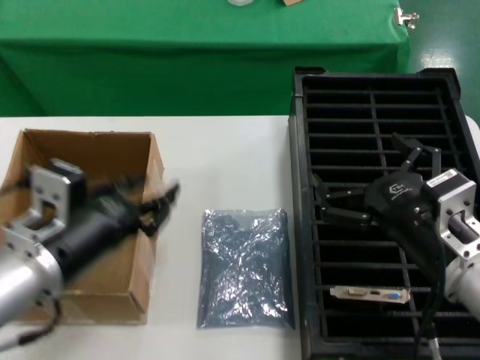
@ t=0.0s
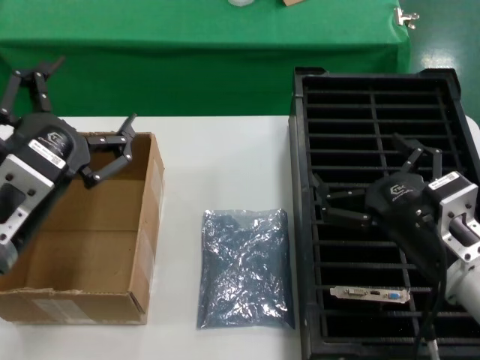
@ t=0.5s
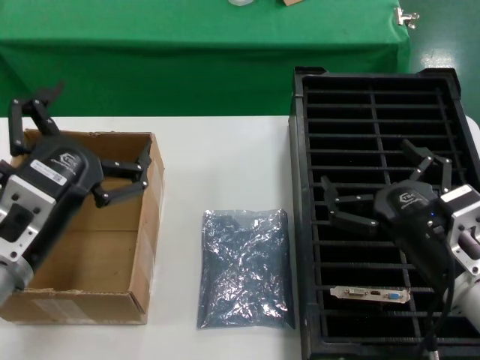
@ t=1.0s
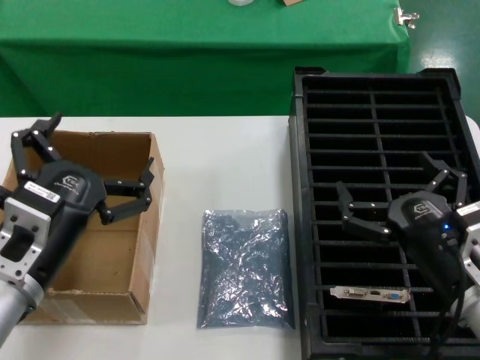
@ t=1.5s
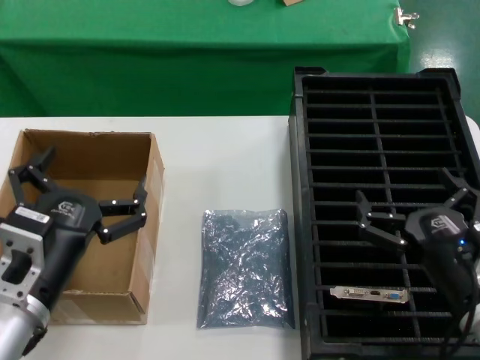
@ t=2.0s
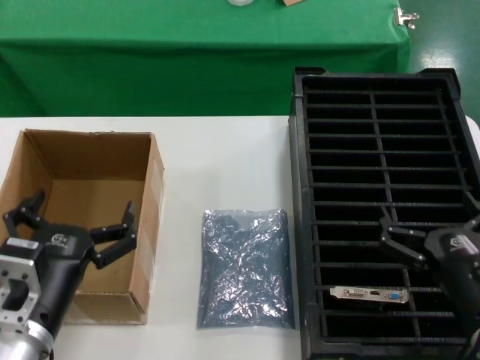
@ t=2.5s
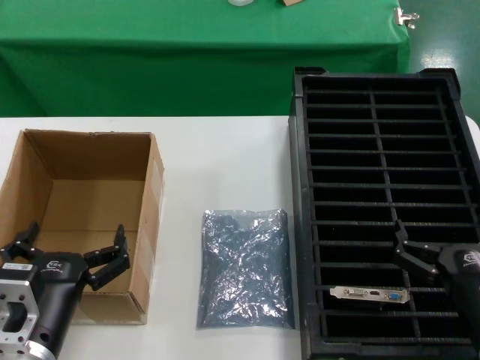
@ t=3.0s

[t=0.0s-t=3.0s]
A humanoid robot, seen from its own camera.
Task of the whole recording: take out graphics card from box remove packaging put into black container.
t=1.5s to t=3.0s: The right hand heads downward, covering some 5 cm. Meanwhile the left hand shifts about 10 cm downward.
